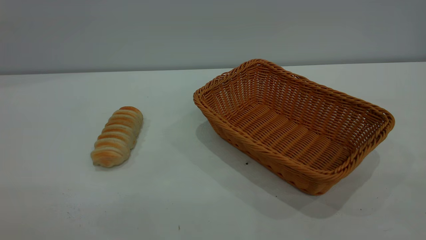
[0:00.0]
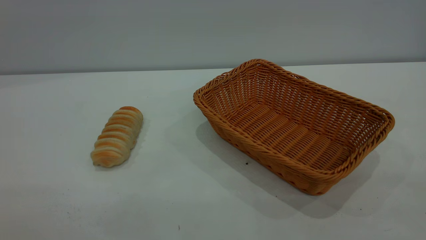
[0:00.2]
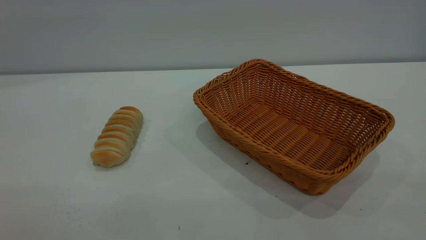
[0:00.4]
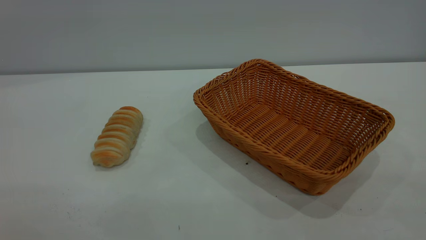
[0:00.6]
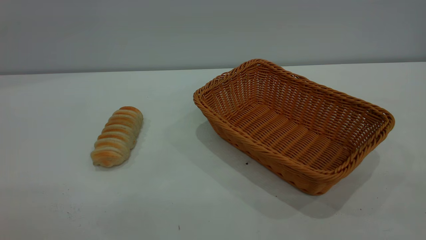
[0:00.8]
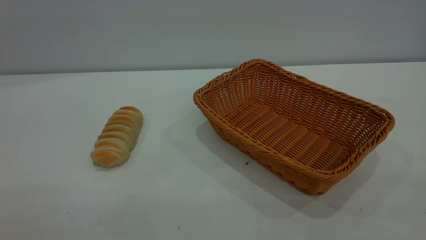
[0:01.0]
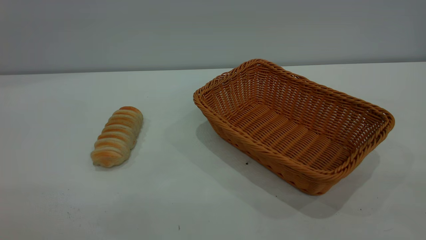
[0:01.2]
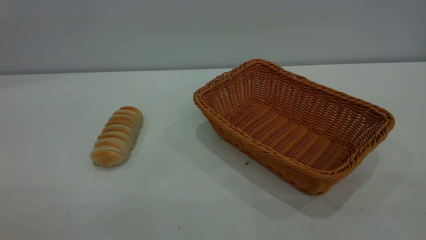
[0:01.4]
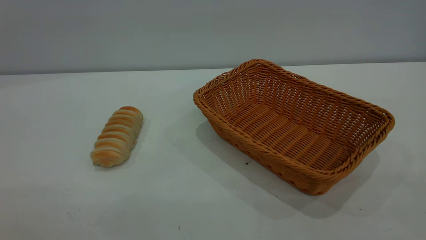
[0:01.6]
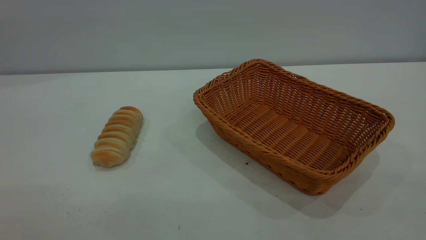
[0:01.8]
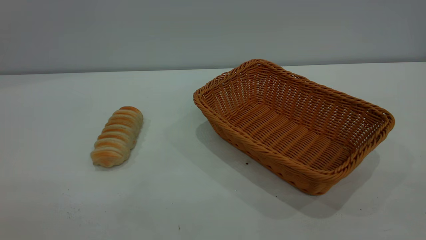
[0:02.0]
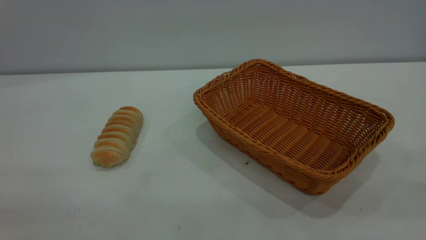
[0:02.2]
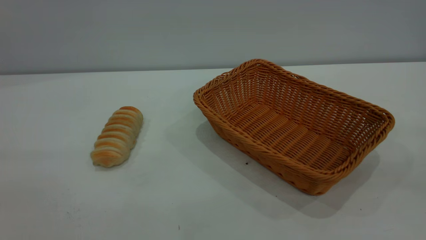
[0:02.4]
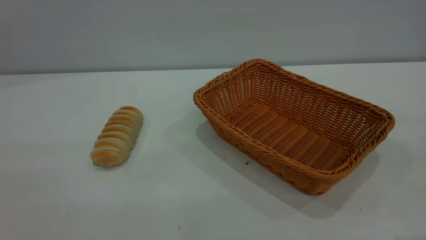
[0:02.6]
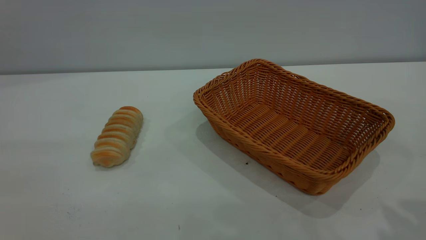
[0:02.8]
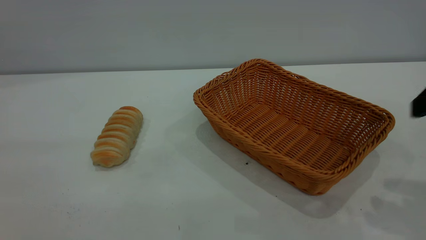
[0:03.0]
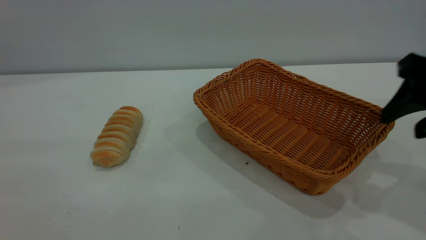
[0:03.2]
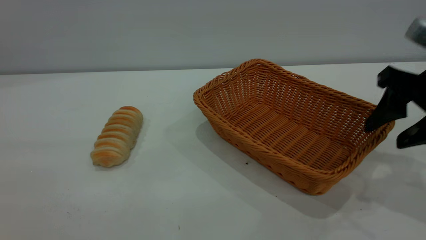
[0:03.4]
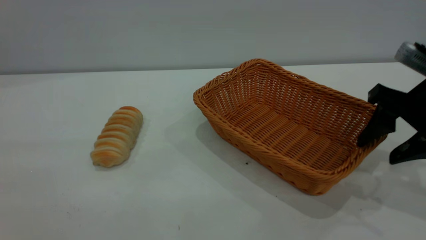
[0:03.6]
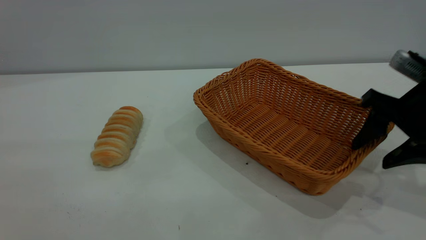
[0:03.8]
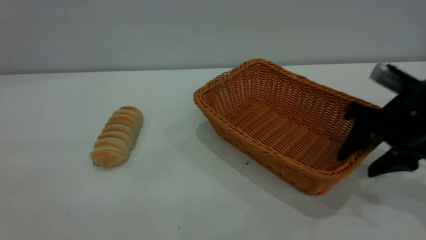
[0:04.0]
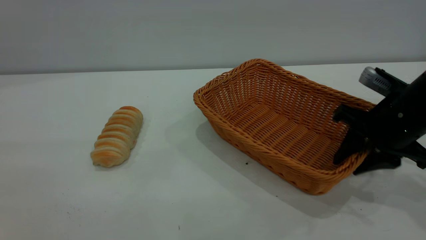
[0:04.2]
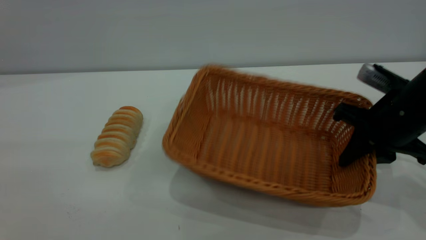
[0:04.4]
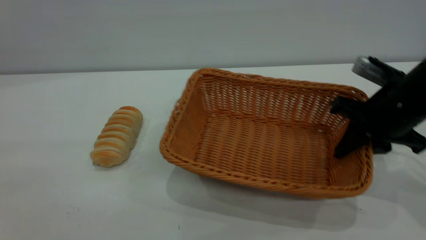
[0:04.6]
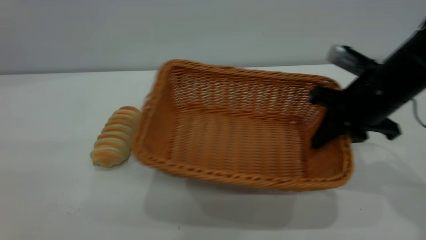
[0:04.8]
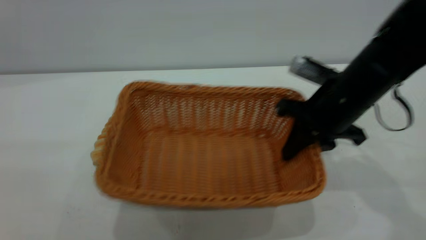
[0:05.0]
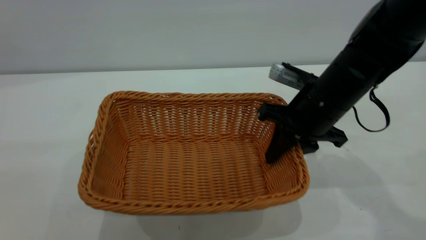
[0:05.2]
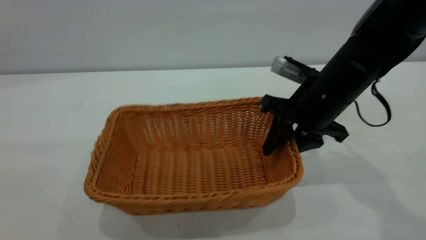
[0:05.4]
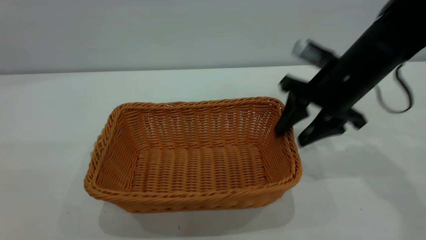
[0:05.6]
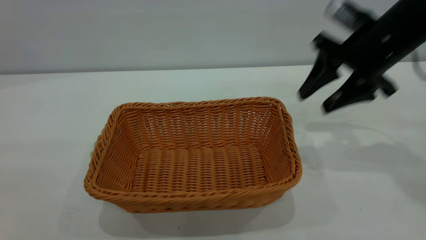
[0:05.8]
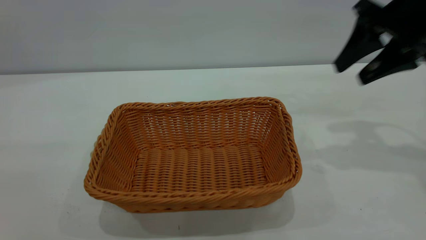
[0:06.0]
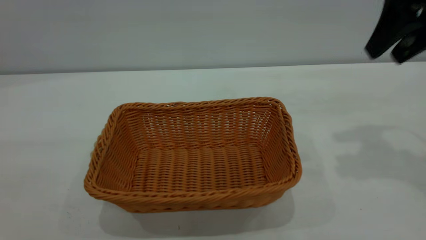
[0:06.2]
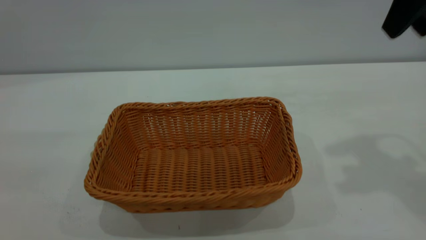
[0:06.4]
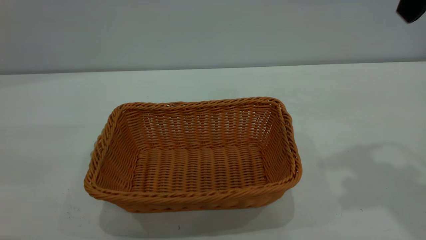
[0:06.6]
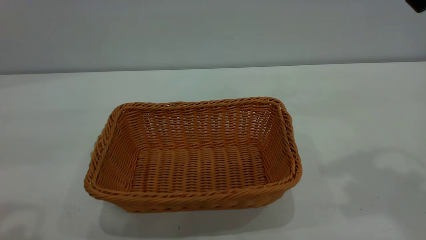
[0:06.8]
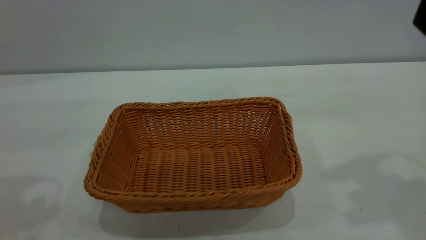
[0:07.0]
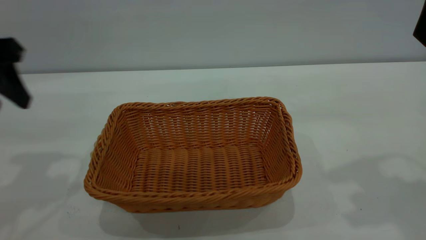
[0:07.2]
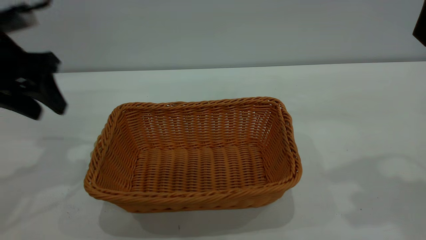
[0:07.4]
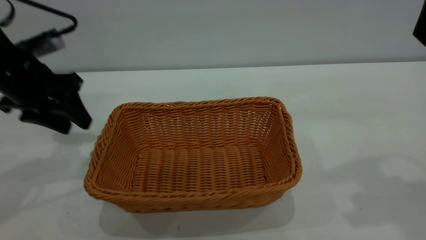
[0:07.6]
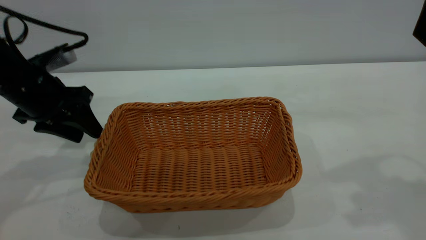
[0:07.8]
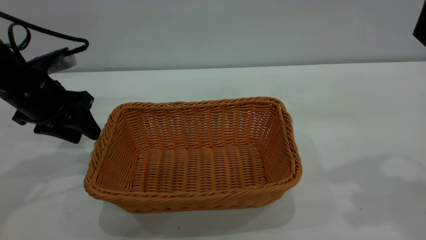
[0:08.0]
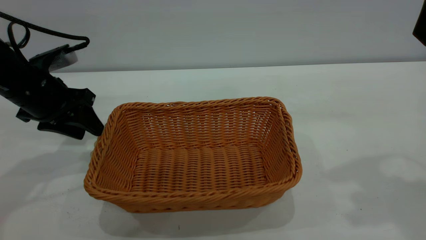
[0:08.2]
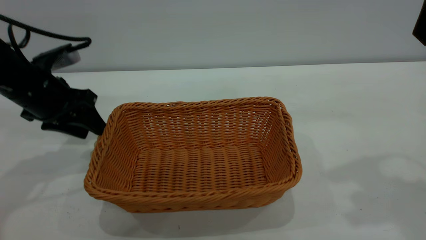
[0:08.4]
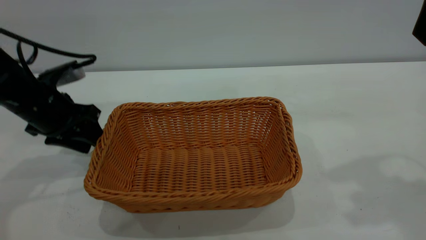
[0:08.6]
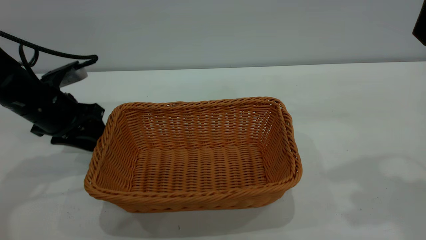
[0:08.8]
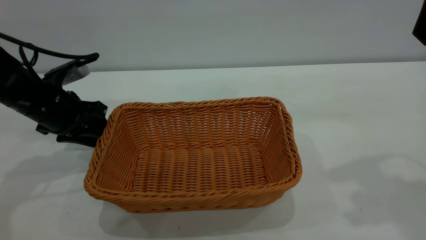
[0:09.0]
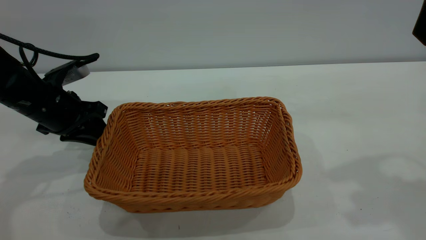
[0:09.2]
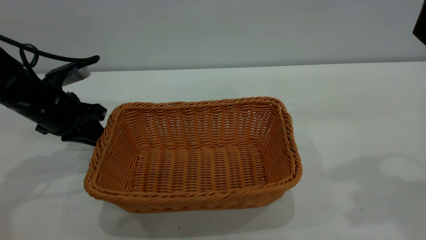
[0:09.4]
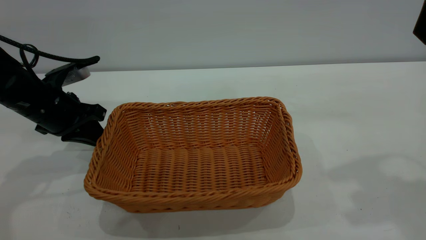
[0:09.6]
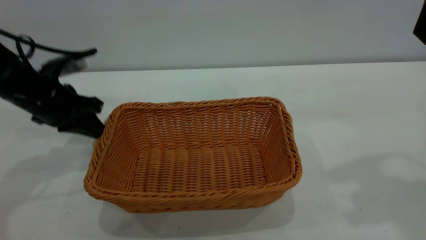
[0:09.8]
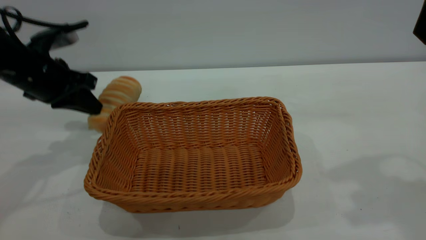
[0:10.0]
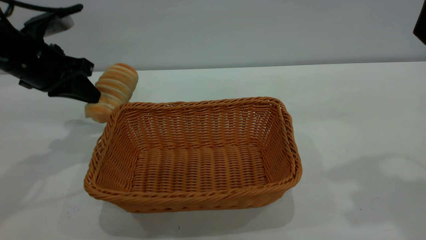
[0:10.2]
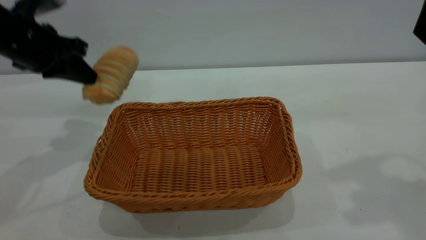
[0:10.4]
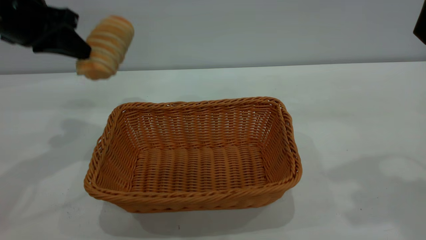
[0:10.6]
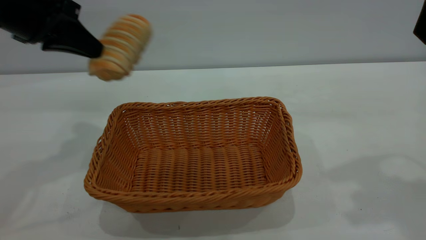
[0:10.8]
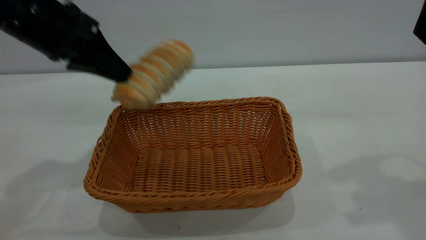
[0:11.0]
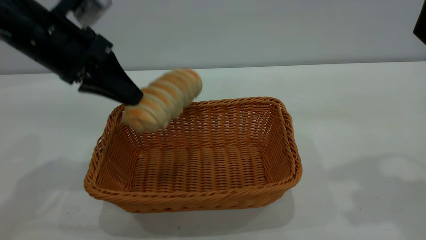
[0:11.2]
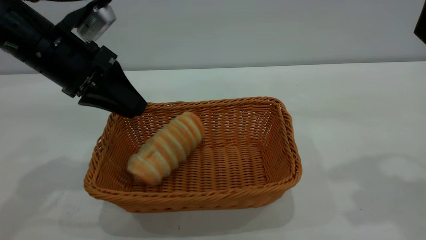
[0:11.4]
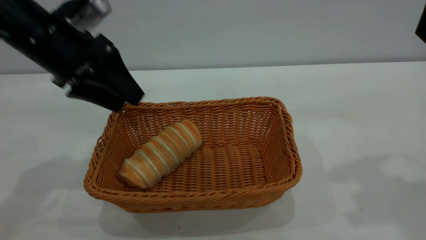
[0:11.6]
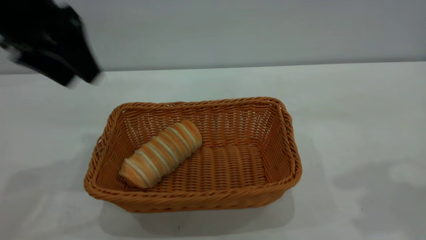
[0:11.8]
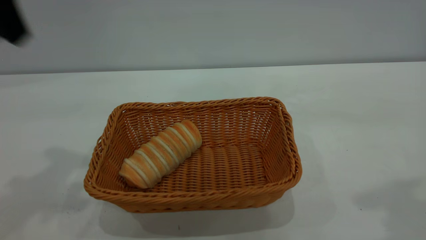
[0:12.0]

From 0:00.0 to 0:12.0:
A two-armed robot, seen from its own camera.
Task of the whole recording: One hand grasps the yellow basket and places it in the middle of the table, while the other hand picks up the long bread and puts it into the yellow basket.
Step, from 0:00.0 to 0:05.6: Move the basket to the center of view.
Step, from 0:10.2 to 0:11.6: place the bread into the basket.
From 0:00.0 to 0:01.6: Both grippers stay about where they are.
From 0:03.0 to 0:04.4: The right gripper moves downward and forward, approximately 15 cm, and closes its fingers.
From 0:04.4 to 0:06.0: The right gripper shifts approximately 15 cm upward, and opens its fingers.
From 0:06.0 to 0:07.6: The left gripper heads forward and downward, covering some 35 cm. Meanwhile the right gripper travels upward and backward by some 15 cm.
From 0:07.6 to 0:09.0: The left gripper shifts approximately 5 cm downward.
From 0:09.0 to 0:10.4: The left gripper moves upward, roughly 10 cm, and closes.
From 0:10.4 to 0:12.0: The right gripper is displaced backward by approximately 5 cm. The left gripper is displaced upward and backward by about 20 cm, and opens up.
